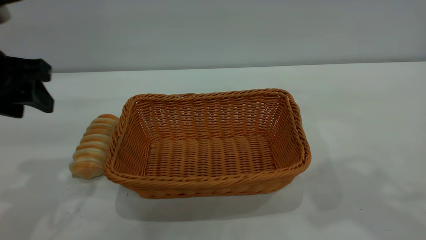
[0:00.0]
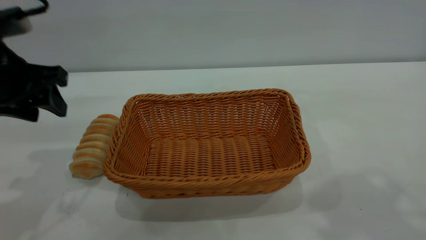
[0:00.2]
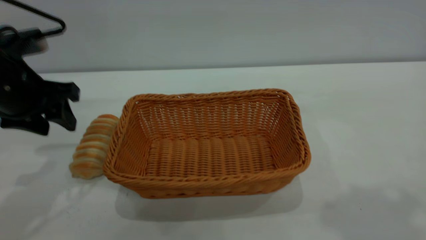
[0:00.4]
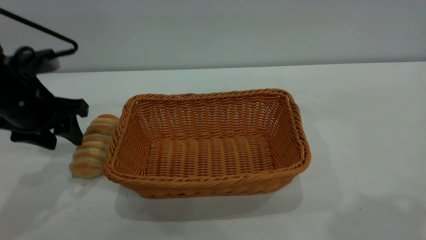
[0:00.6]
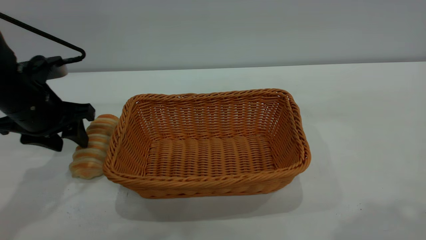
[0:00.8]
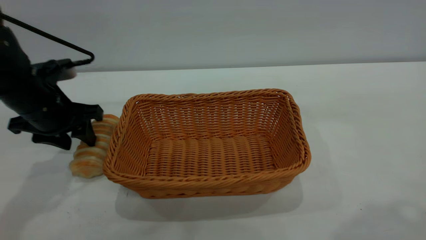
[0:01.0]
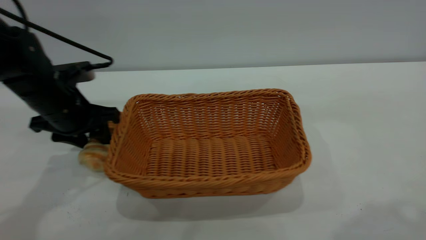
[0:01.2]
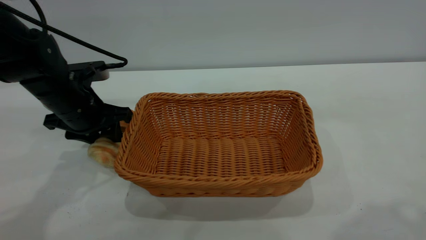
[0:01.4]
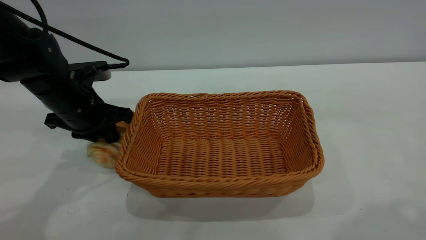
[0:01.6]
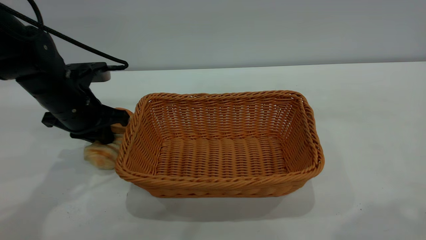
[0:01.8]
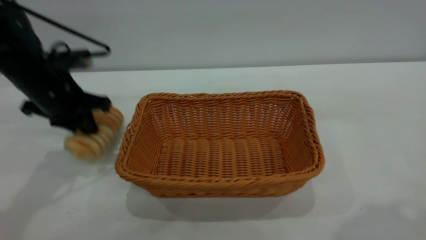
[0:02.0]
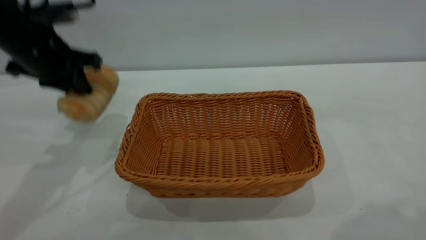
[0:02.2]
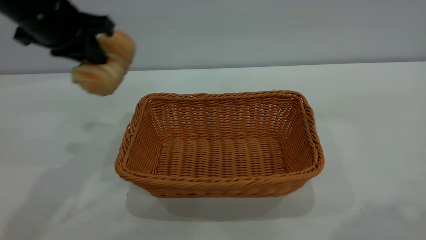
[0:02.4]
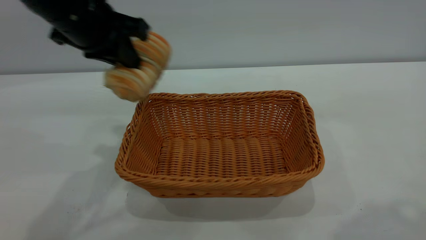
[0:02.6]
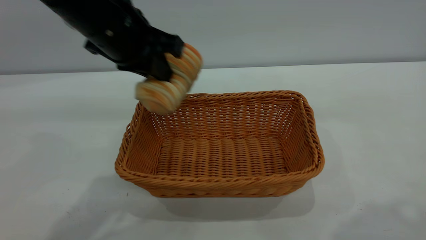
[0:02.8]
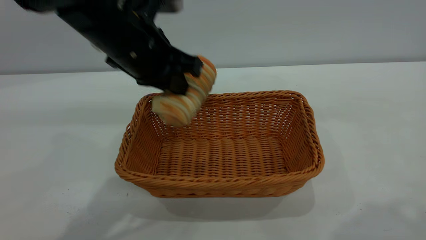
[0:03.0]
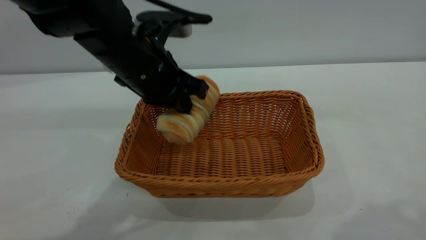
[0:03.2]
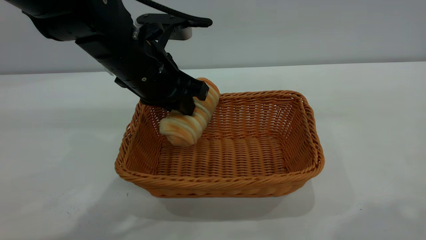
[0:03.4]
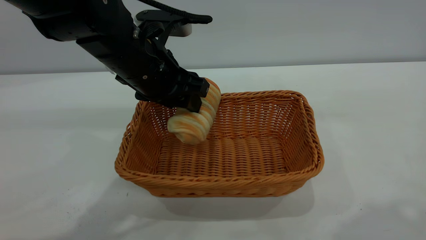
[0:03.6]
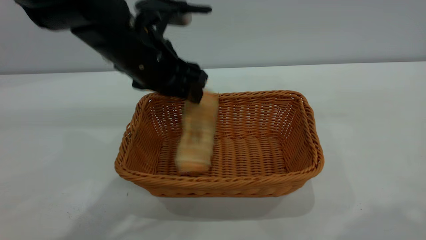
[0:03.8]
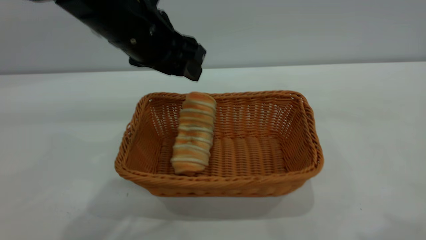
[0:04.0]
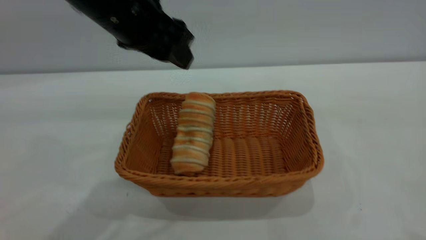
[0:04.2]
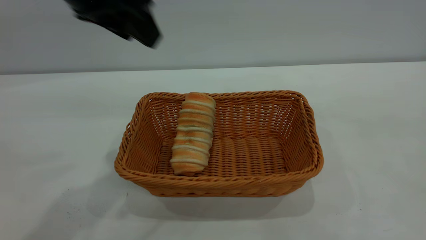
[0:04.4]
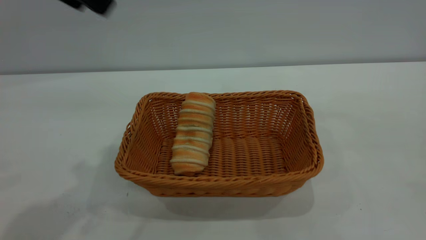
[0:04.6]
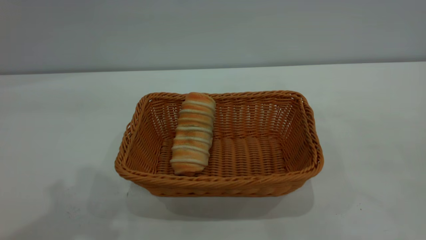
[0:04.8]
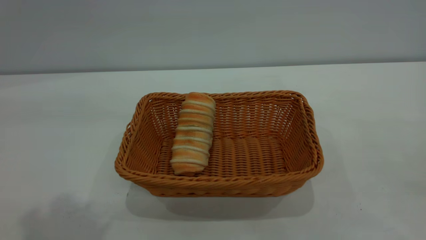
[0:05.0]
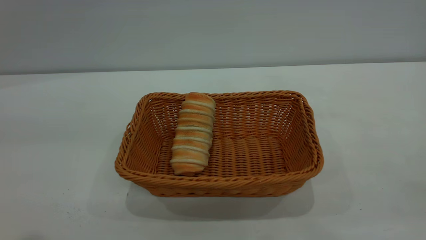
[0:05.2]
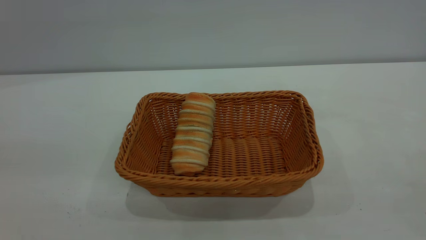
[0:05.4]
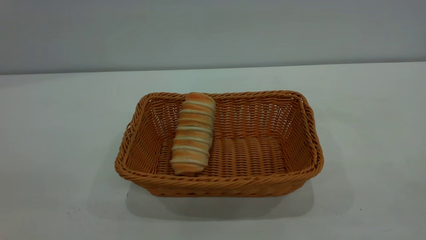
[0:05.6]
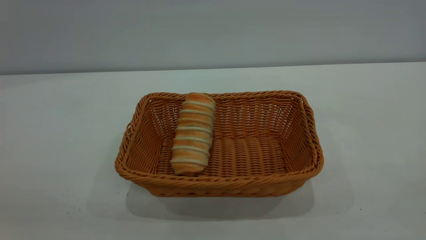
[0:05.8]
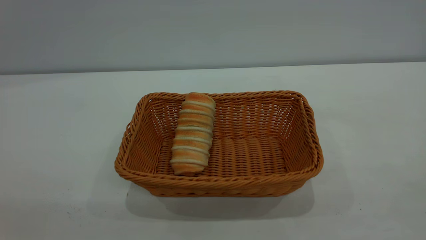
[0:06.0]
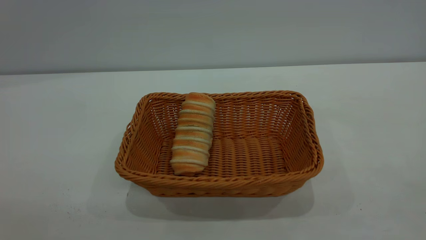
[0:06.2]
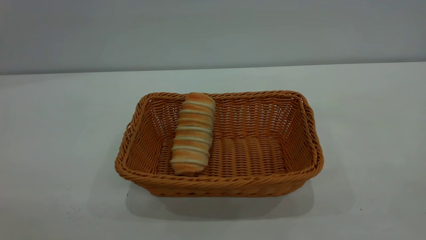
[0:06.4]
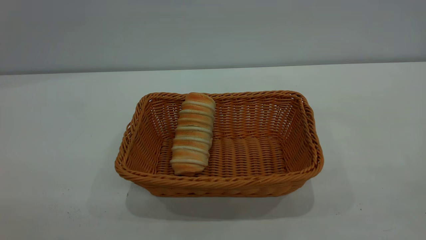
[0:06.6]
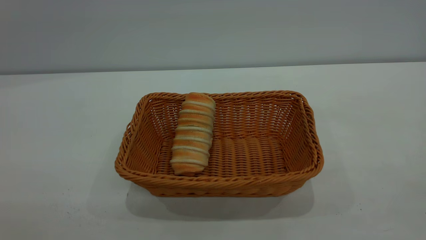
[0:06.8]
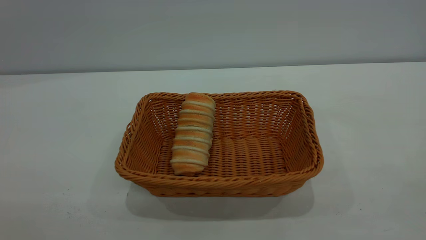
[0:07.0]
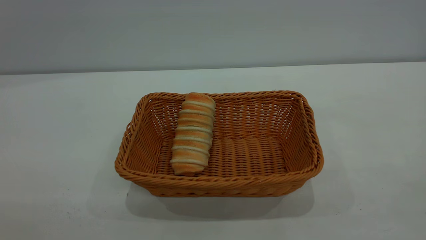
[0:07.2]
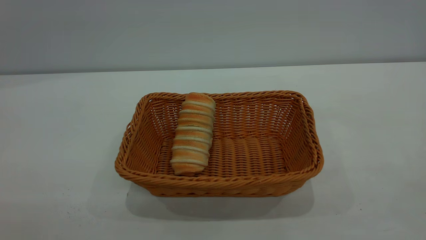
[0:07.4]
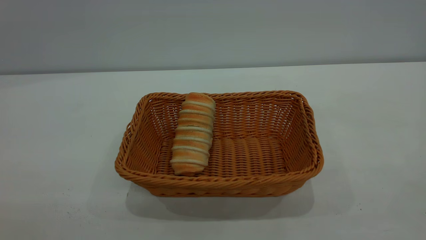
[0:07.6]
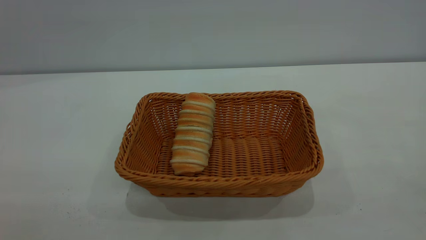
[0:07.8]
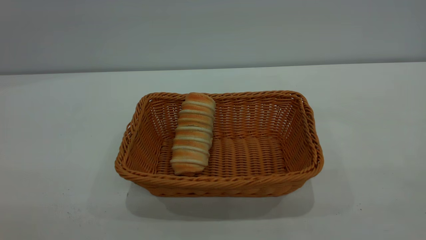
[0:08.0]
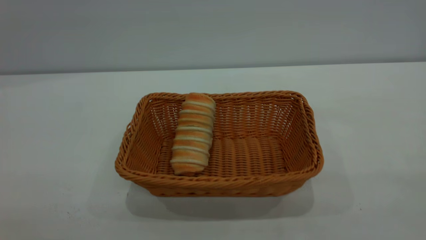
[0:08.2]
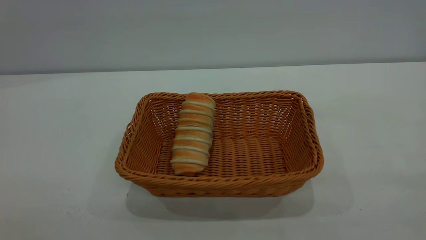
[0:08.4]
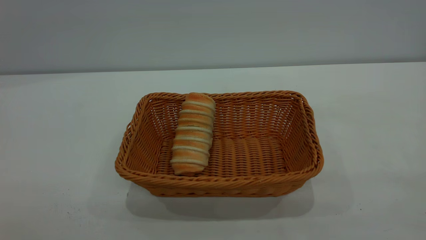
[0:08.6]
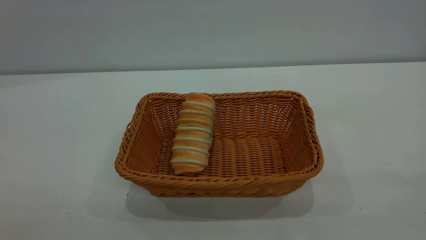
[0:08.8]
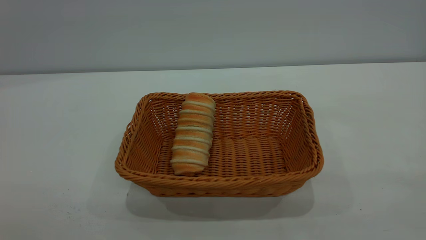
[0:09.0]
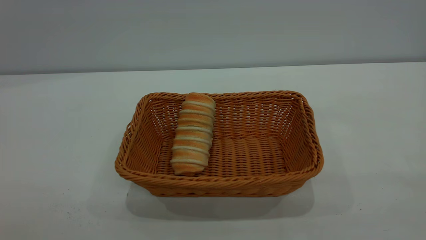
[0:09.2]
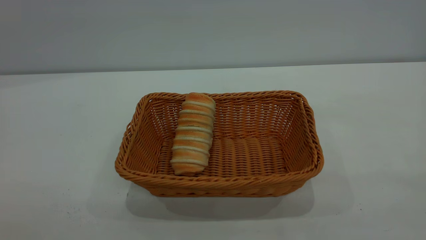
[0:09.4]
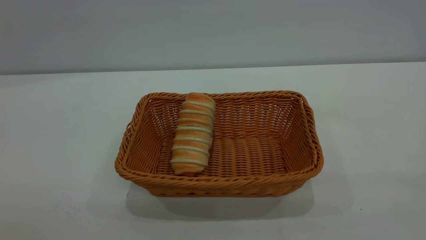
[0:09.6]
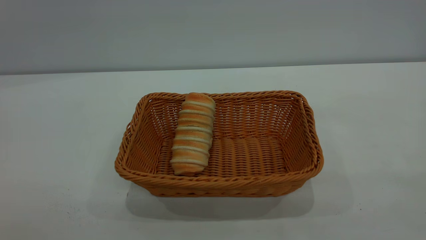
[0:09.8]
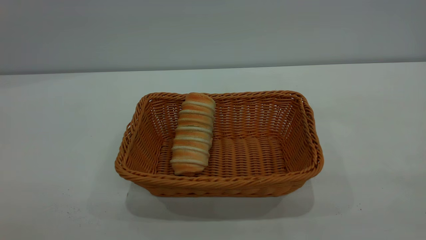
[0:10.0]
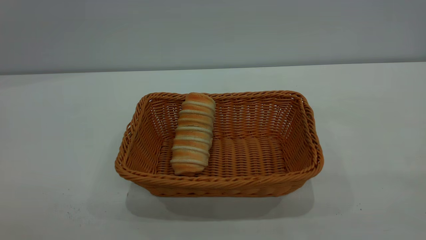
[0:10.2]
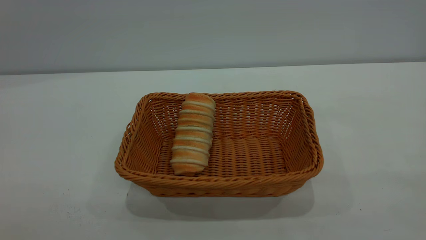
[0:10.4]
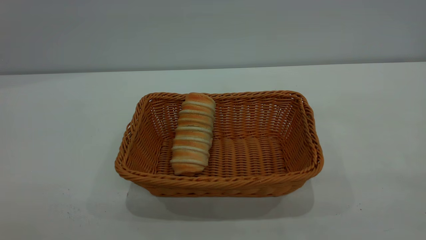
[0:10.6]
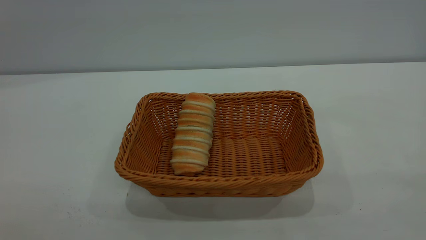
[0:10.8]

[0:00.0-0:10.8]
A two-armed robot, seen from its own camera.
Task of the whole recording: One hand grasps the yellow basket and places it in the middle of the table, while the other hand picks up the long bread and puts it into the yellow basket.
Step, 0:02.2 to 0:04.0: place the bread into the basket.
0:00.0 to 0:01.6: The right gripper heads backward, covering roughly 10 cm. The left gripper heads downward and forward, covering some 15 cm, and closes its fingers.
0:01.6 to 0:03.0: The left gripper moves to the right and upward, about 15 cm.
0:03.0 to 0:04.6: The right gripper travels backward and to the right by approximately 15 cm; the left gripper shifts about 20 cm upward and to the left, and opens.
0:09.2 to 0:10.8: The two grippers keep their place.
